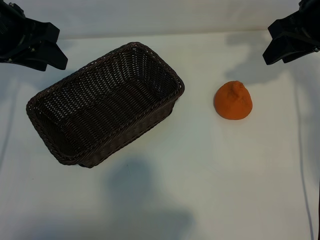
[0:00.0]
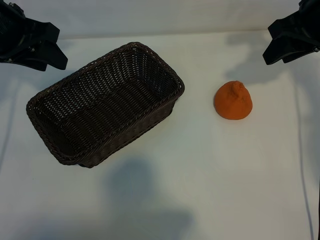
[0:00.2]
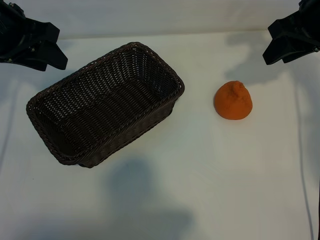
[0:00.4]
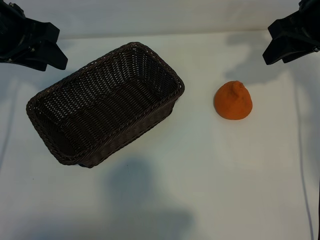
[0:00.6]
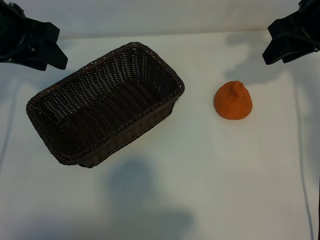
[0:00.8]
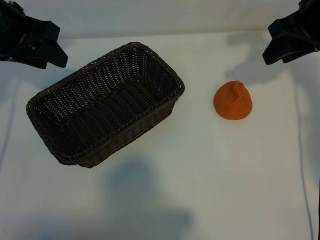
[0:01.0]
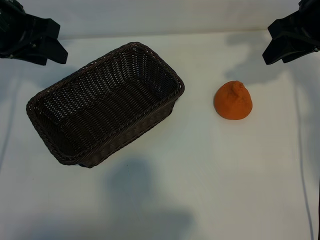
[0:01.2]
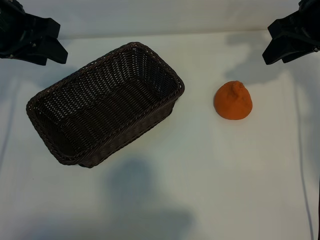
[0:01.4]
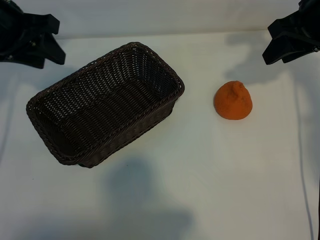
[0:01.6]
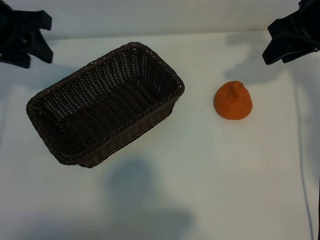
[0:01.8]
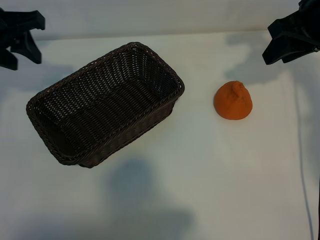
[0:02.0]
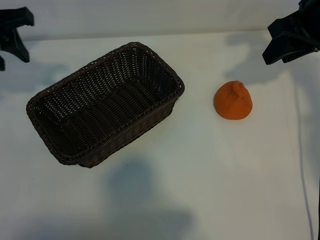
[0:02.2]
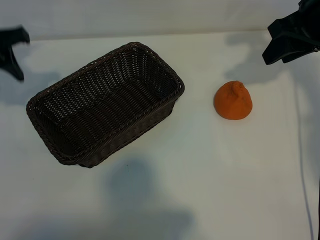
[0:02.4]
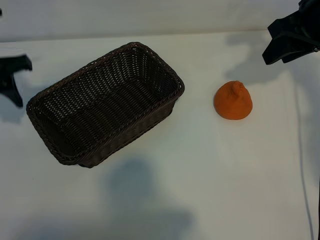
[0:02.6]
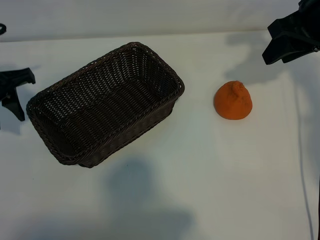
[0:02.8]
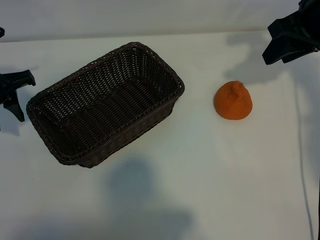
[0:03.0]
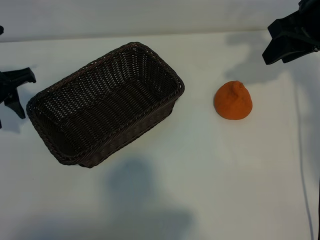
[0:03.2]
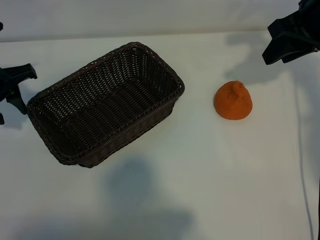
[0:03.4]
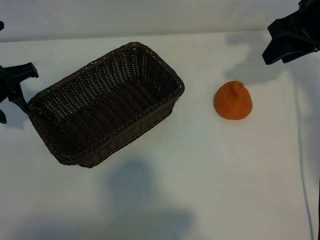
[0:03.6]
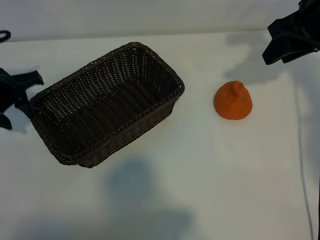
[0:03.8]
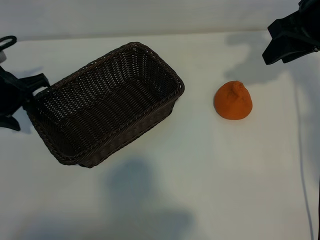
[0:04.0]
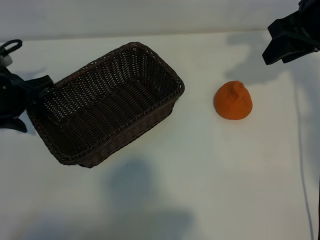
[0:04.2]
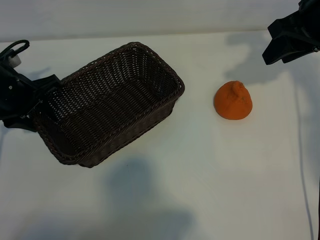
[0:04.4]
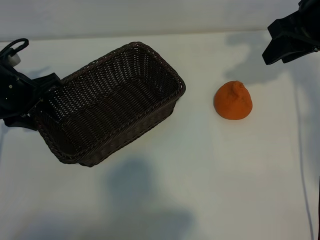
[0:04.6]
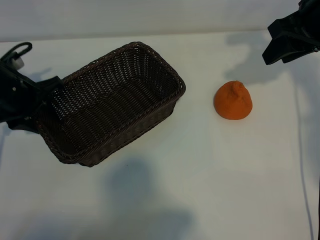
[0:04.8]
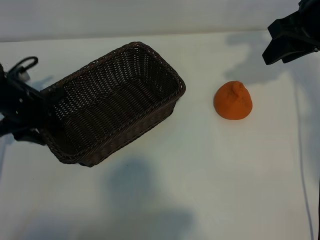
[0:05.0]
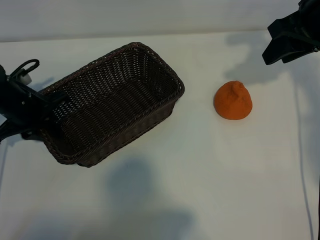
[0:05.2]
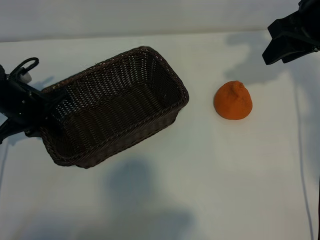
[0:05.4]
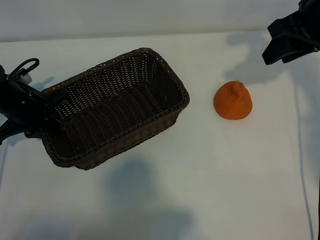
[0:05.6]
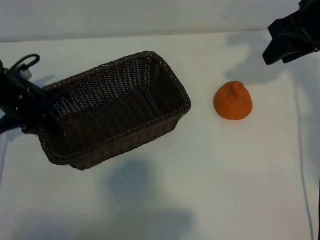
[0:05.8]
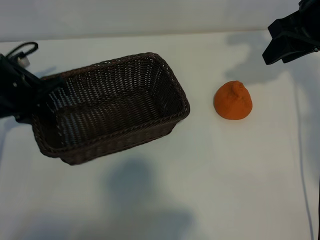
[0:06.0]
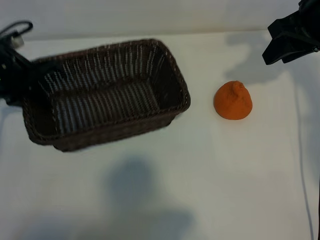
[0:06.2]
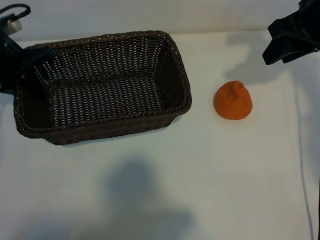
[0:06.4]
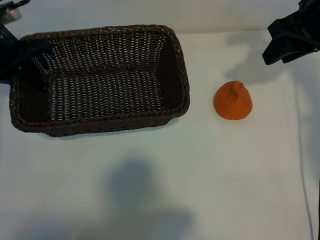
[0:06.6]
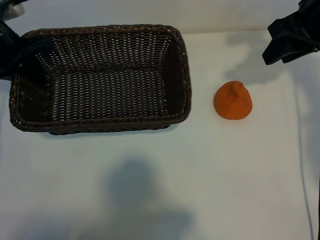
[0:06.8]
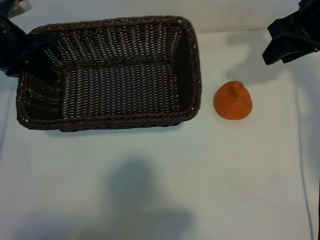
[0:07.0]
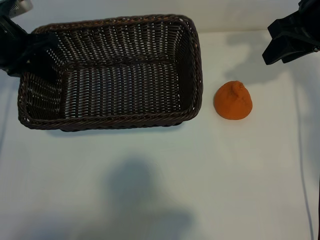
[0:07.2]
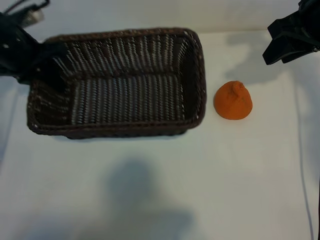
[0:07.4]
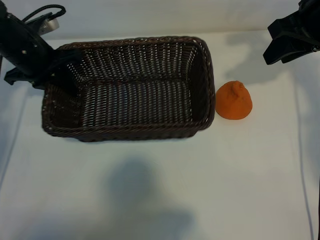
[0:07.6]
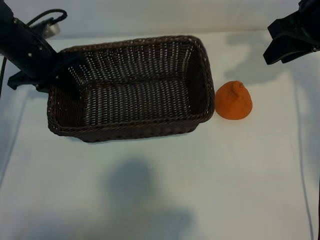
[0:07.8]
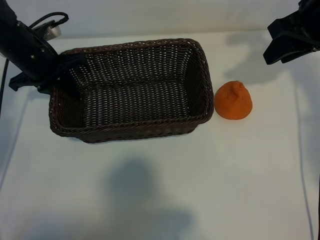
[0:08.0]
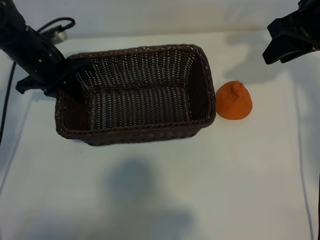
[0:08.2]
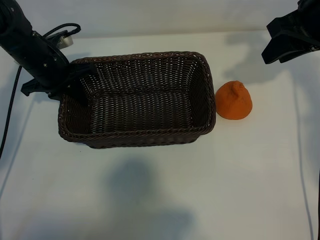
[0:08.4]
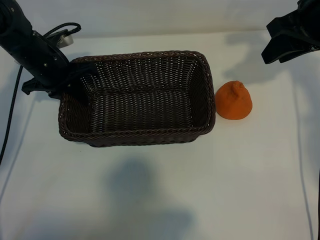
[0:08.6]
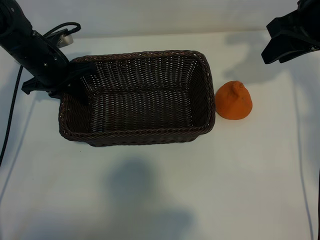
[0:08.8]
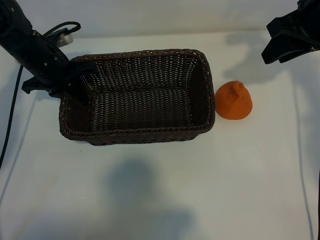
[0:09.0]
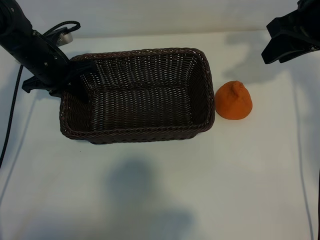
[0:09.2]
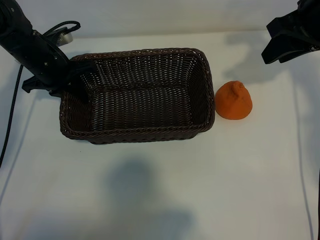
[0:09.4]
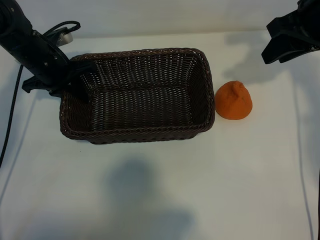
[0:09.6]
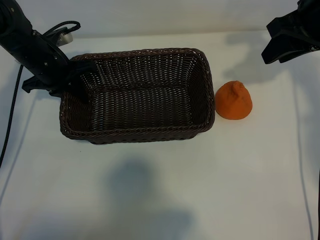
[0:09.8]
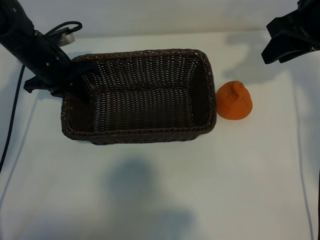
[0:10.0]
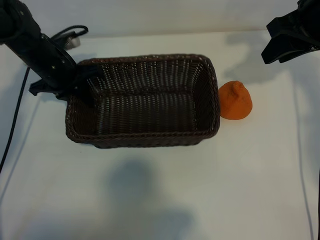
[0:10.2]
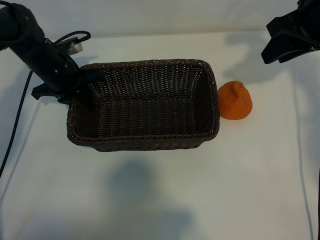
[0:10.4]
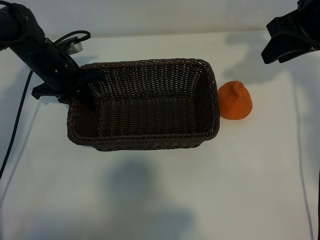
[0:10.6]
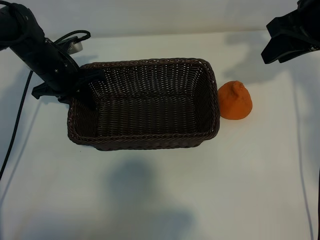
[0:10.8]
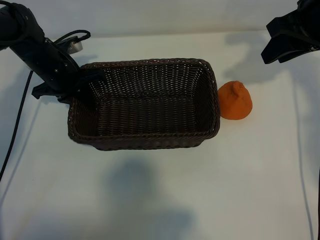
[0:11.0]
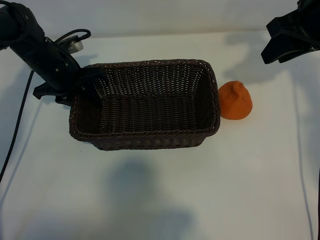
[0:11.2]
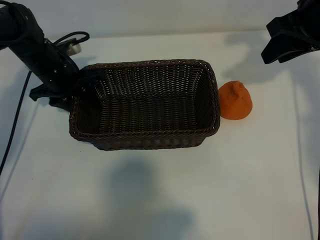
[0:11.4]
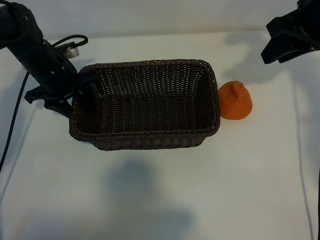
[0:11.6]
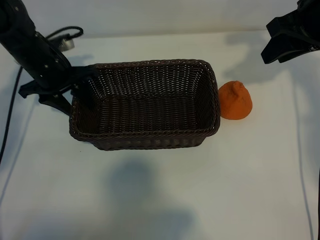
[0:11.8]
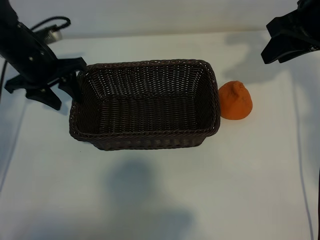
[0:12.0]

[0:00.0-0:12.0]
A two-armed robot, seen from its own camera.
Task of the whole recording: pick up the orange and put it into the basket.
Step, 0:01.0 to 0:05.2: Grasp the basket with left gripper.
Step, 0:05.6 to 0:11.0: Place the basket in the center of view with left gripper.

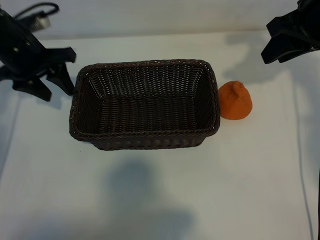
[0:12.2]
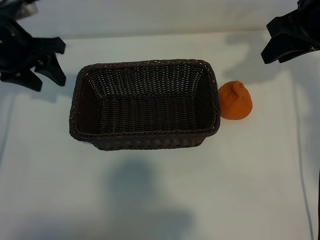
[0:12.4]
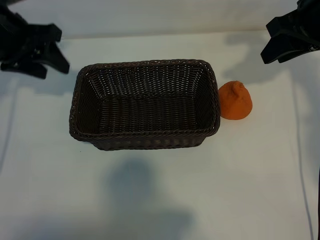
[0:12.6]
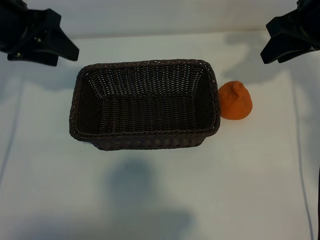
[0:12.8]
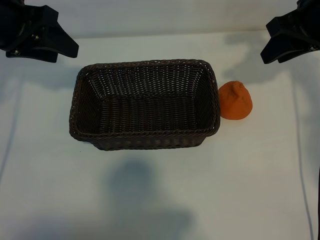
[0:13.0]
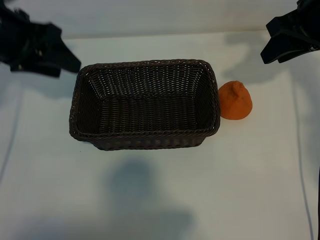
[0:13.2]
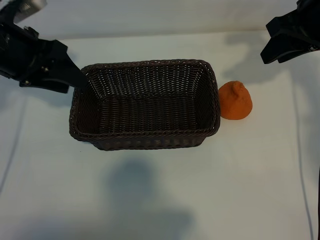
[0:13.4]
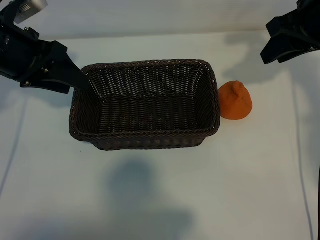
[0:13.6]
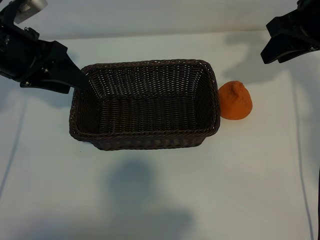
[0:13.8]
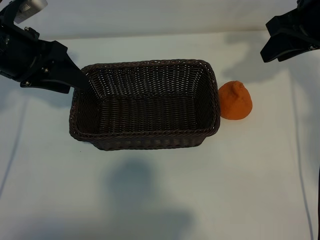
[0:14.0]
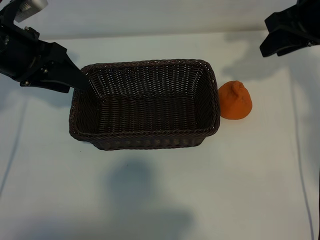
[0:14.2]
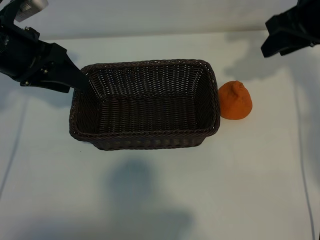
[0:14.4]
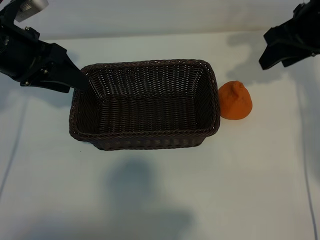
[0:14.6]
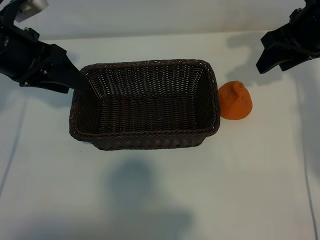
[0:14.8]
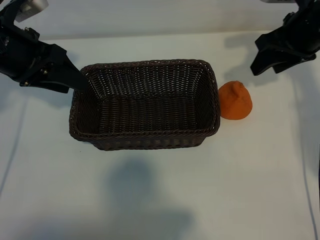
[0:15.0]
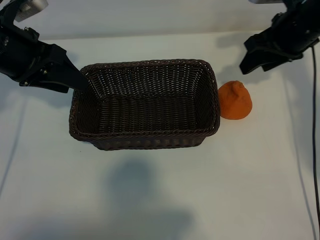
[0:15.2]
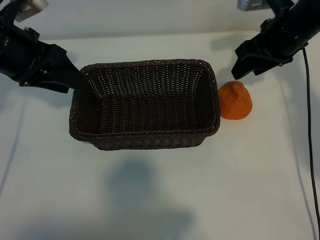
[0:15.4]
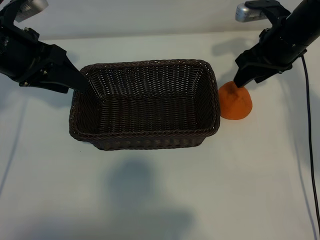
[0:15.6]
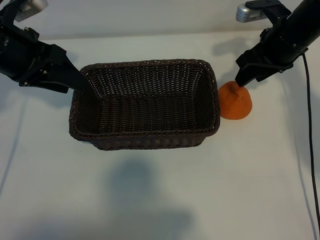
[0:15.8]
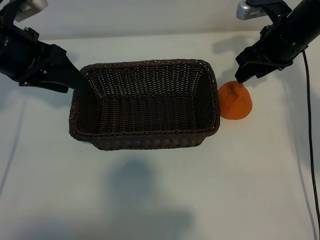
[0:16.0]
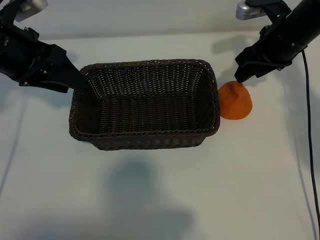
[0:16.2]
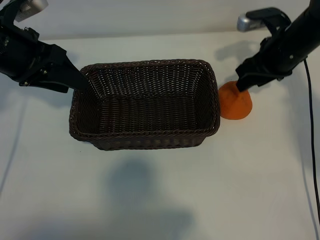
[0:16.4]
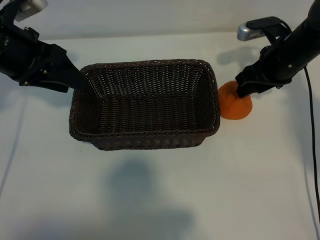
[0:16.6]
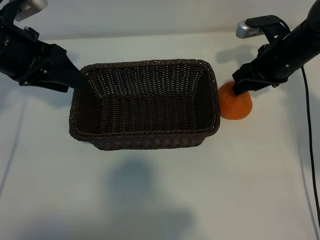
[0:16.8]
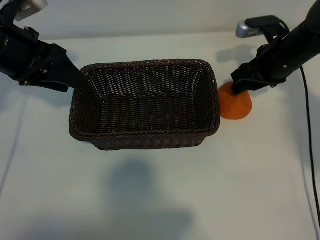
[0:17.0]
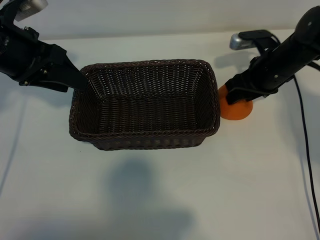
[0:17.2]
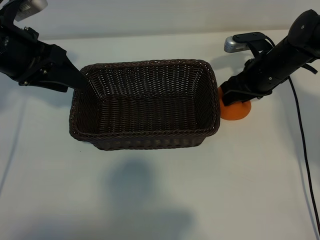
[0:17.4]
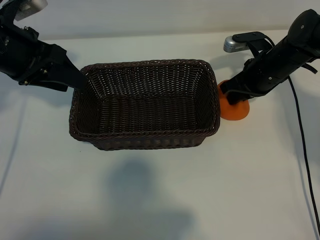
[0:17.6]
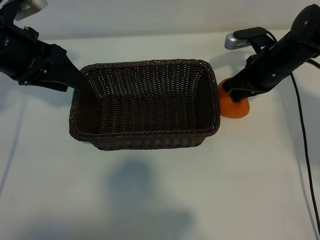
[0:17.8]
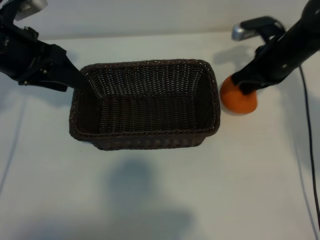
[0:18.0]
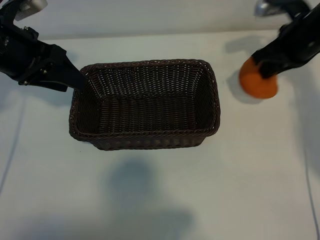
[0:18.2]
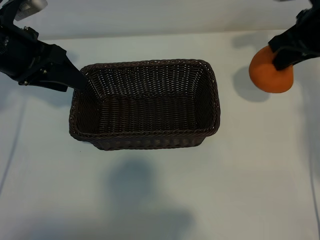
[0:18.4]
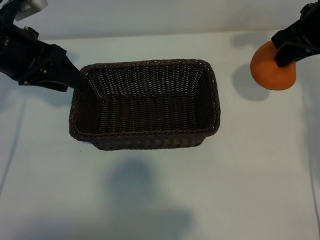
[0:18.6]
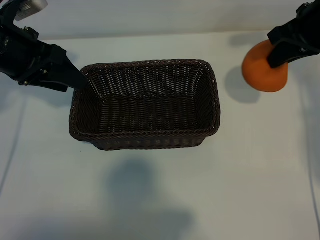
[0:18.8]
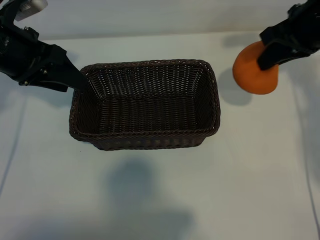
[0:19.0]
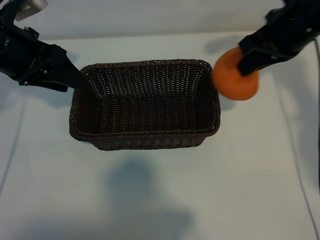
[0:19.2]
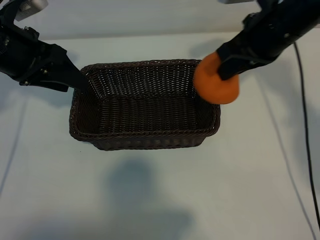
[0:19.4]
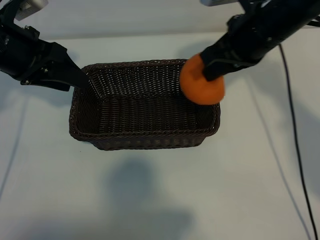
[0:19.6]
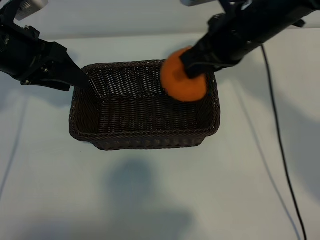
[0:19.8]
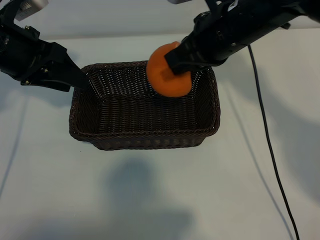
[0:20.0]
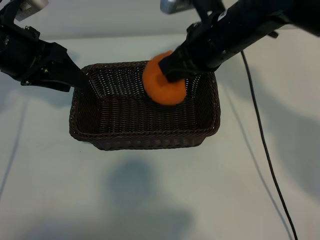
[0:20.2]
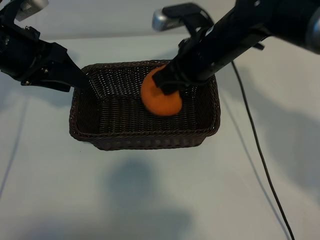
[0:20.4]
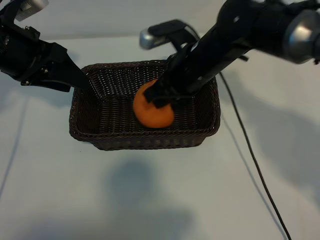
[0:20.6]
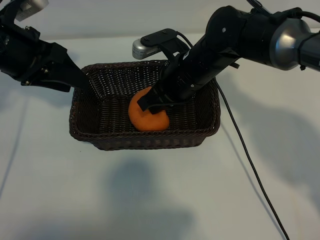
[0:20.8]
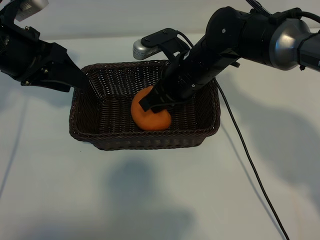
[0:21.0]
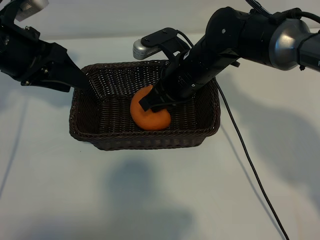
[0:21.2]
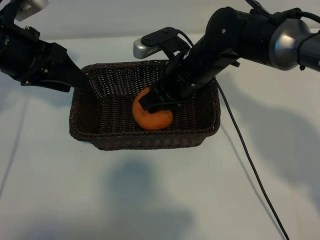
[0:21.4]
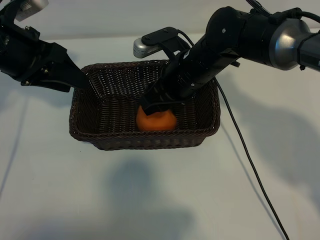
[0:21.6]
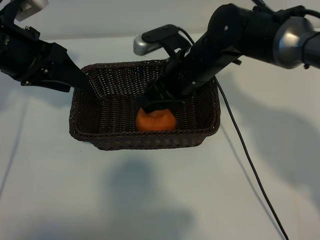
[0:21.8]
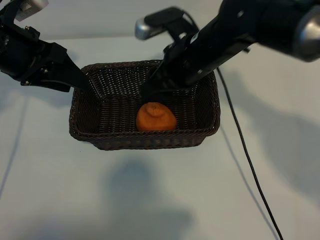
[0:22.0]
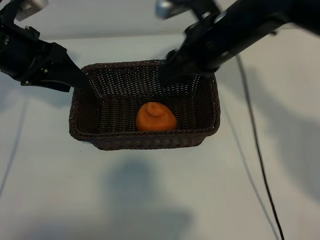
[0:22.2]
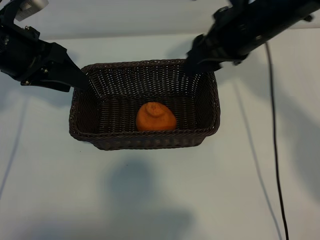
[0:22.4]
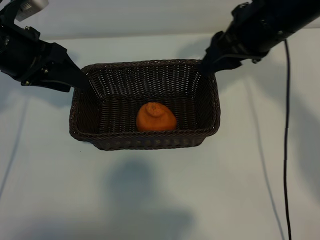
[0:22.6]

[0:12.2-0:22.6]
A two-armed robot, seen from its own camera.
Task of the whole recording: pick up the orange and put it into the basket.
Step, 0:12.2 to 0:17.6: Grasp the orange with right gripper.
Step, 0:17.8 to 0:21.4: Place the orange in the basket with right gripper.
